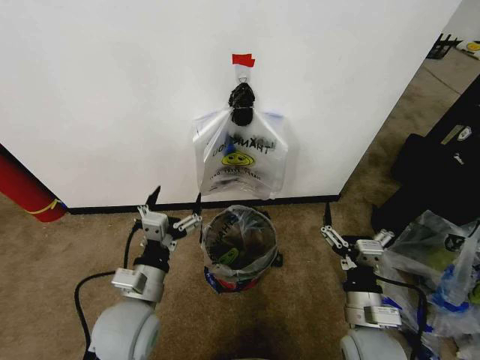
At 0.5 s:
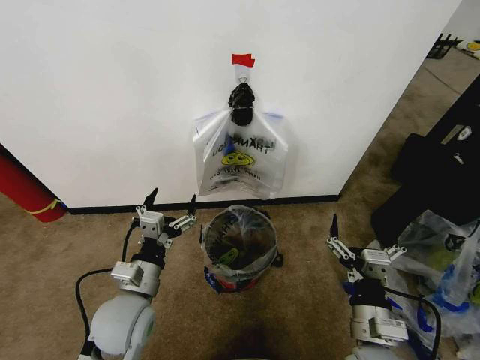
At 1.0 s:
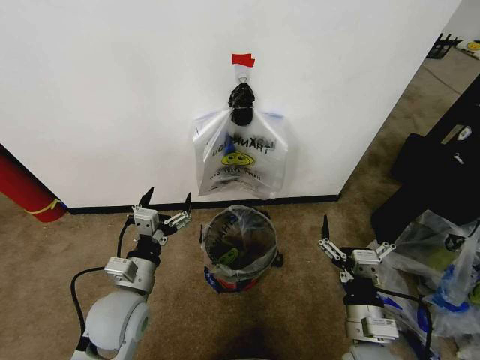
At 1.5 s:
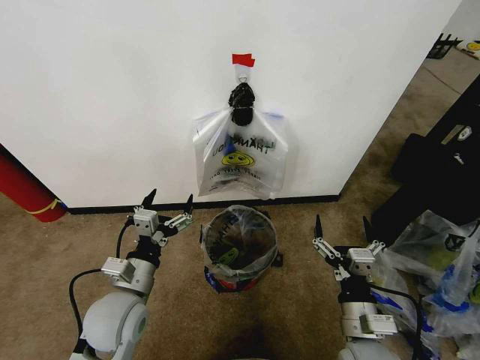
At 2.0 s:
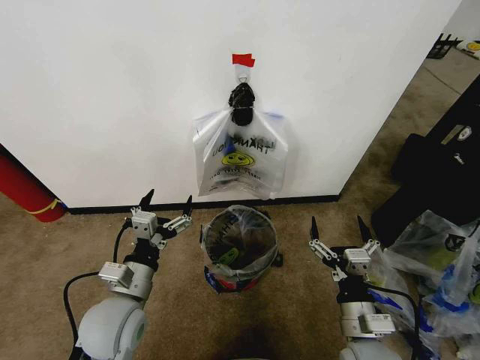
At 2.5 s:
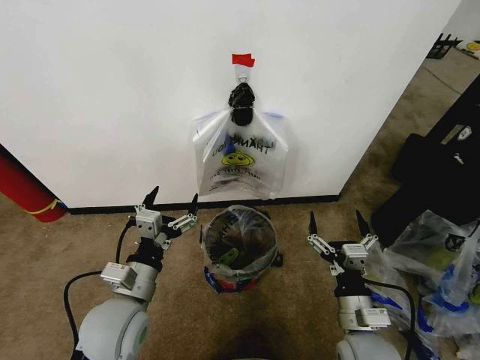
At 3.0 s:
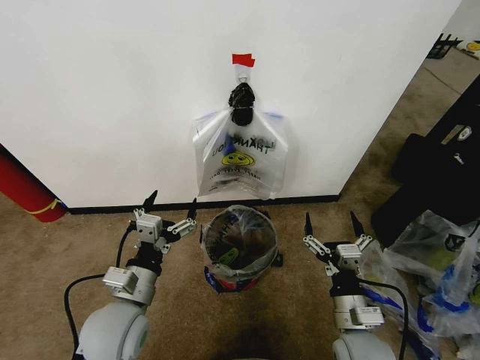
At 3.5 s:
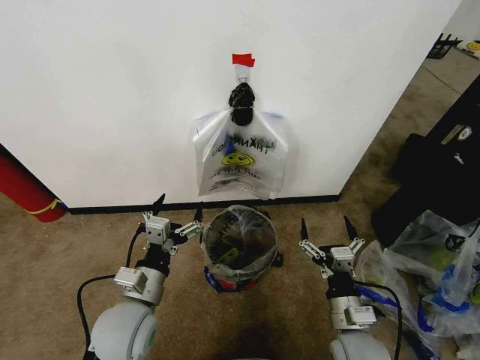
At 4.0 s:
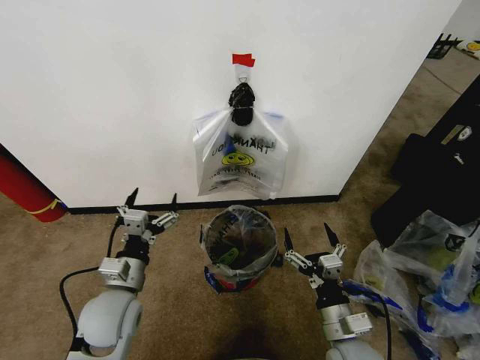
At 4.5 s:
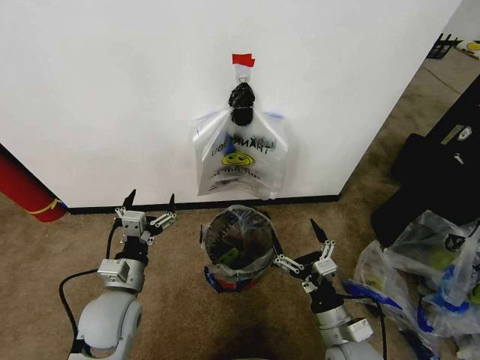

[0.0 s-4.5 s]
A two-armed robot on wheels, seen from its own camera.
Task of the whole recording: Pick up the garbage bag from the wall and place it over the trash bin.
0.0 to 2.0 s: The grippers move only a little.
